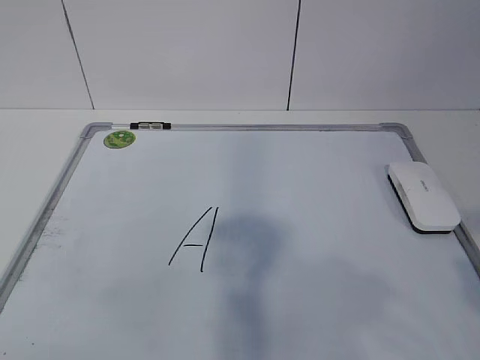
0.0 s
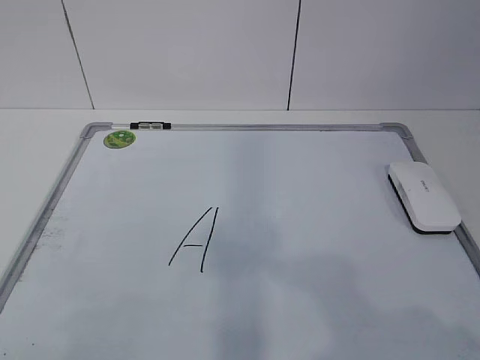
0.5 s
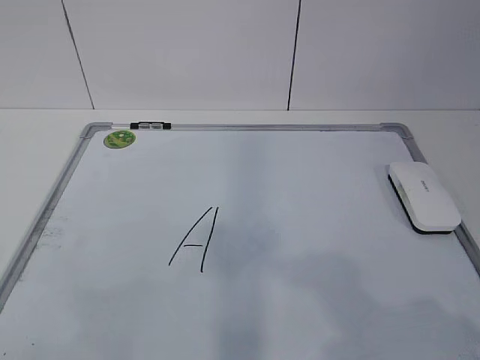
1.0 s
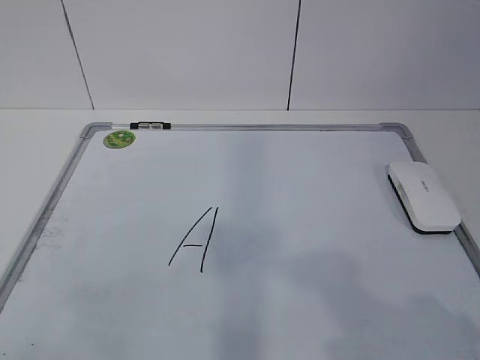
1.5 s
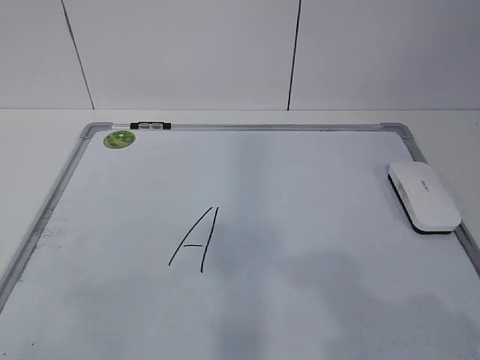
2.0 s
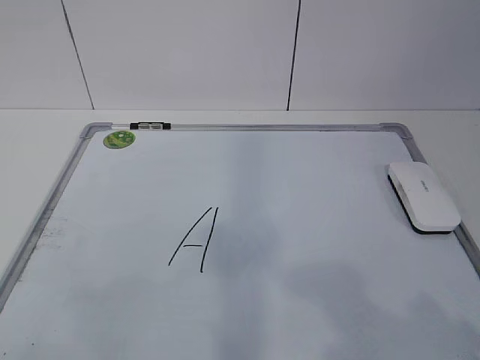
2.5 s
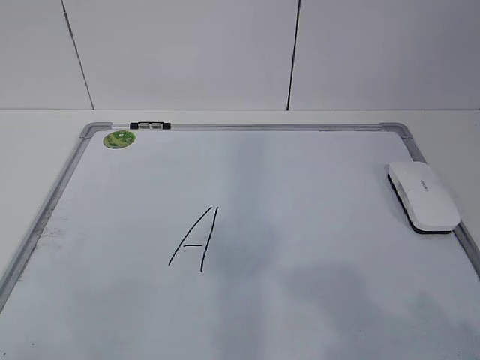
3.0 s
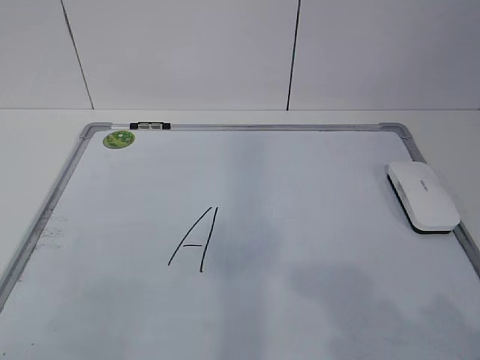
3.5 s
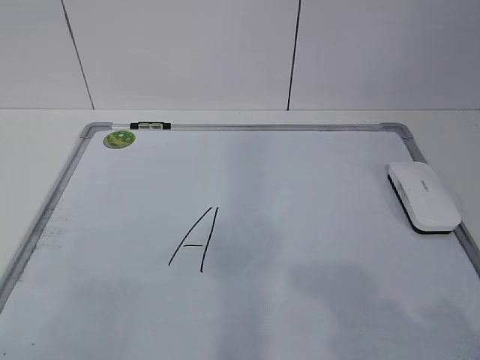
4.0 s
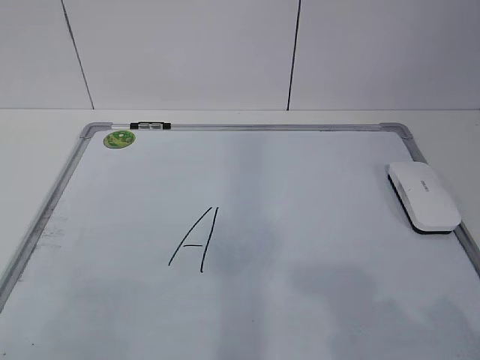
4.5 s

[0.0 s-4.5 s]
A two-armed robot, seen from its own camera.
Task of the whole recording: pick up the eraser on the blackboard and erase the letter "a".
0.0 to 2.0 s: The right gripper travels downward by some 10 cm. Meanwhile the left gripper changes place by some 5 cm.

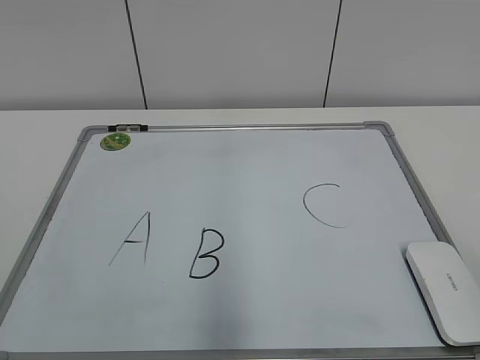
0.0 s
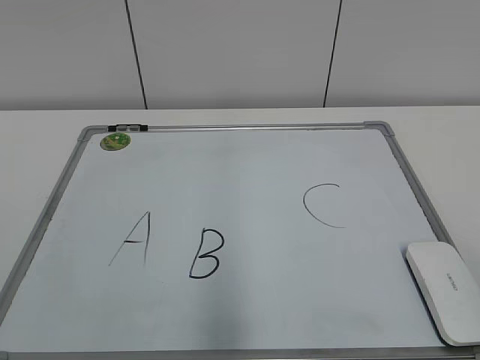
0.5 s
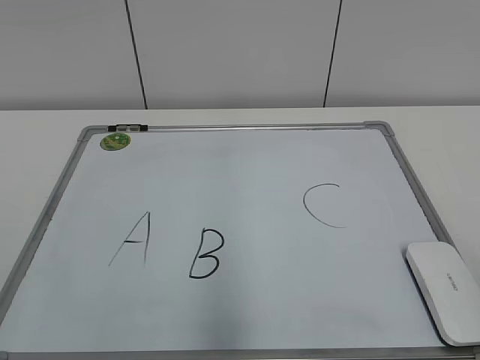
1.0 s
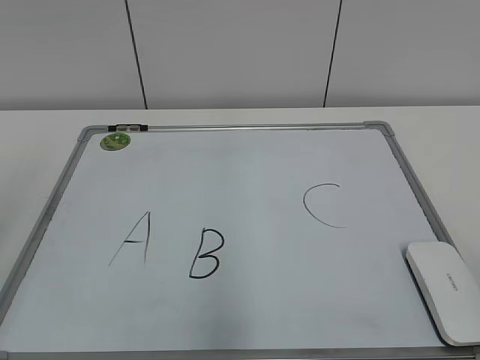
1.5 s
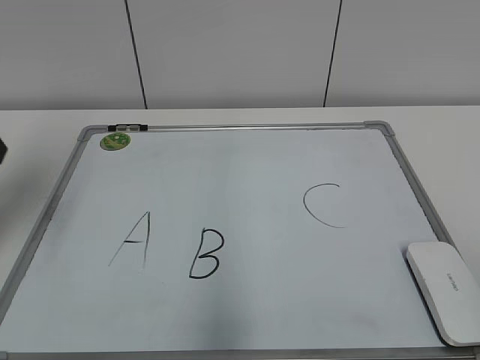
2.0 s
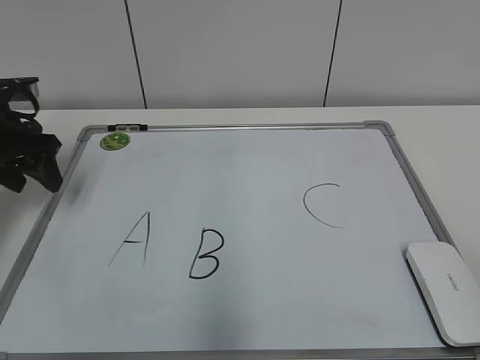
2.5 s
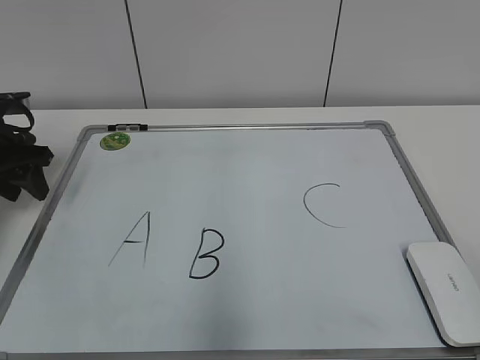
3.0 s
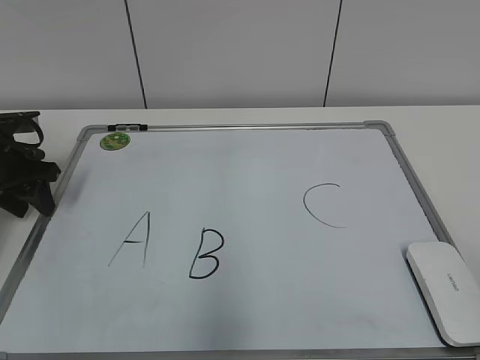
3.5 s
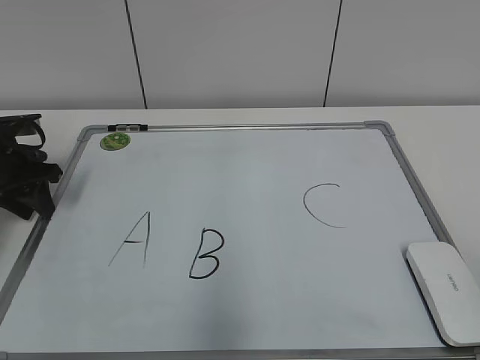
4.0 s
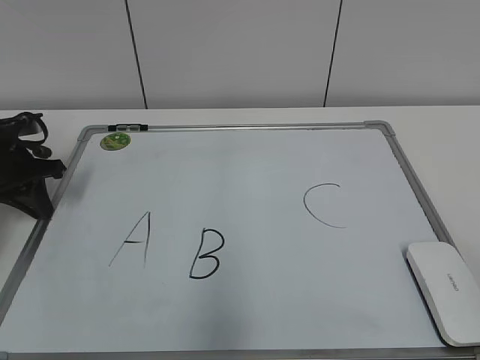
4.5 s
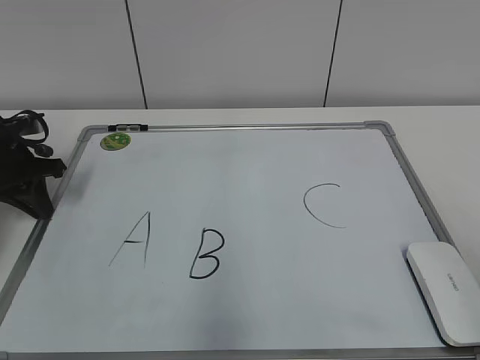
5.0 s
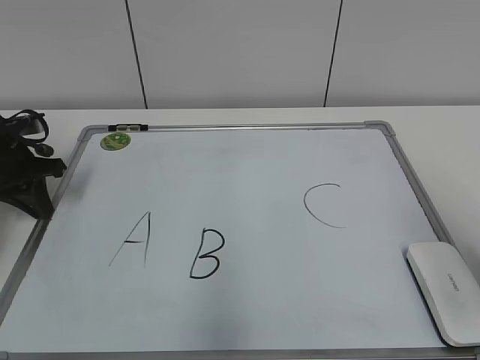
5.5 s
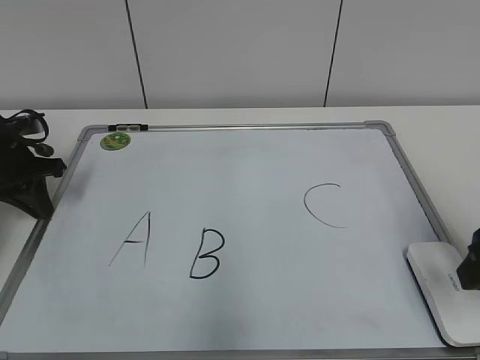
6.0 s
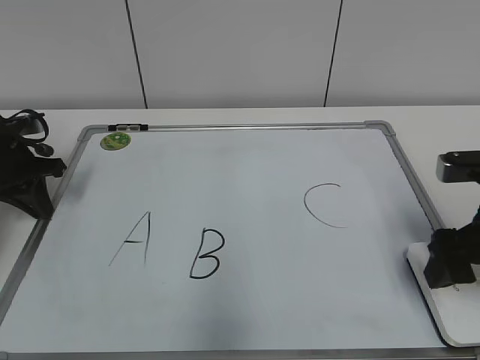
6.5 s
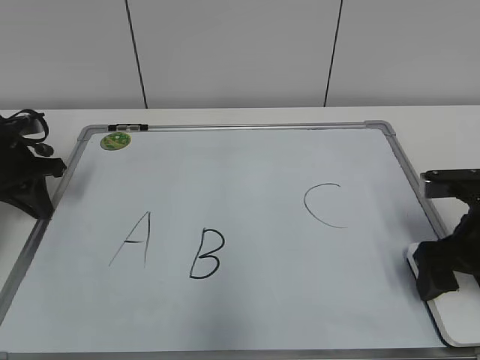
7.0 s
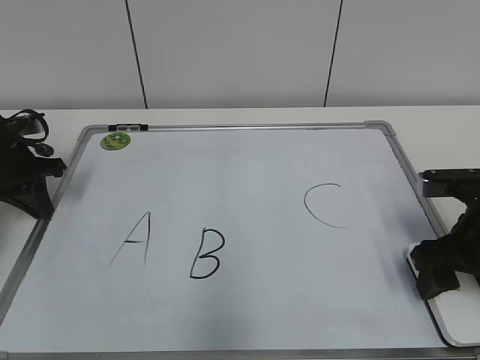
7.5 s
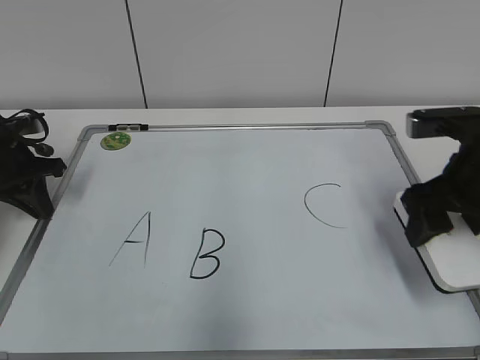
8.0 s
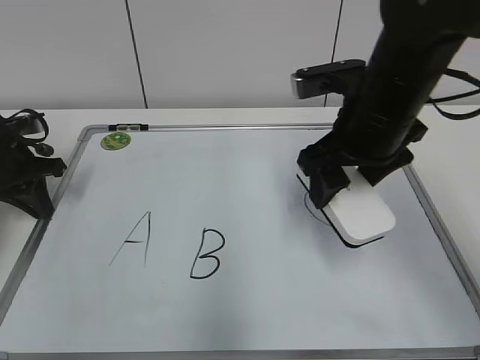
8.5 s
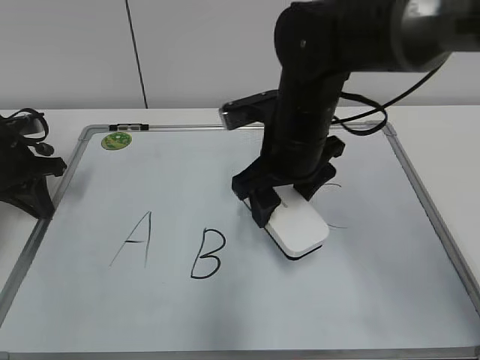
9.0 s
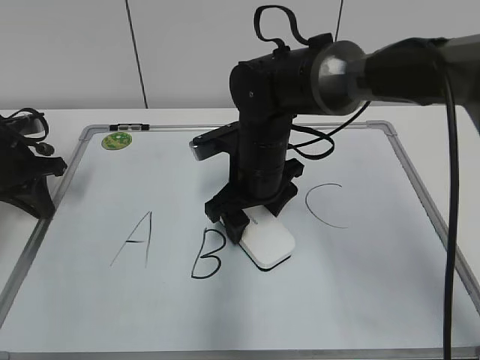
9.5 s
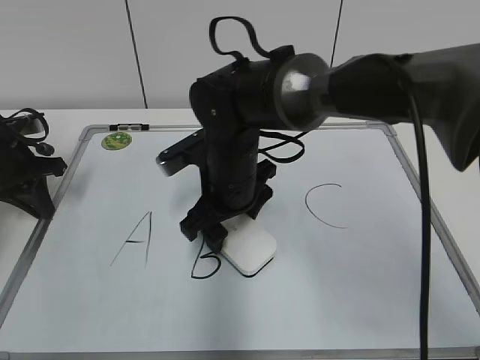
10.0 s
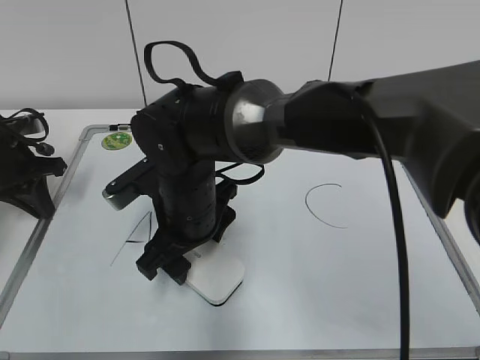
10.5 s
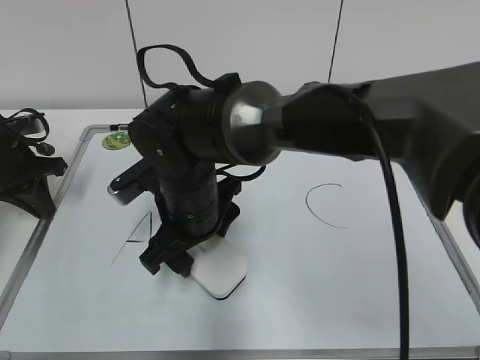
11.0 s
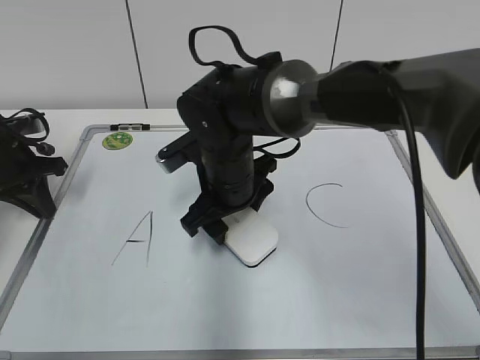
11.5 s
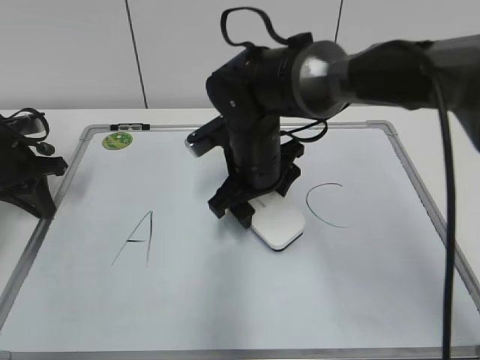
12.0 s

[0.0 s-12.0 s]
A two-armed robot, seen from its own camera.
Task of the whole recording: pick up the eraser on the blackboard and erase the letter "B".
Step, 0.0 to 4.0 s: Hold the drawing board steady with your left hand.
Step, 4.5 to 7.0 s: Grab the eraser with your right hand.
Step, 7.5 to 11.5 s: Erase the letter B with your right hand.
2.0 to 4.0 s: The left gripper heads downward and forward, covering about 20 cm, and closes its fingers.
4.0 to 6.0 s: The left gripper closes its fingers, while the right gripper moves forward, approximately 20 cm.
6.0 to 8.0 s: The right gripper goes approximately 10 cm forward, and closes.
8.0 to 10.0 s: The right gripper heads to the left, covering about 25 cm.

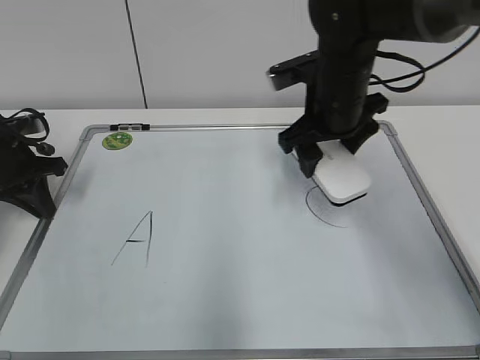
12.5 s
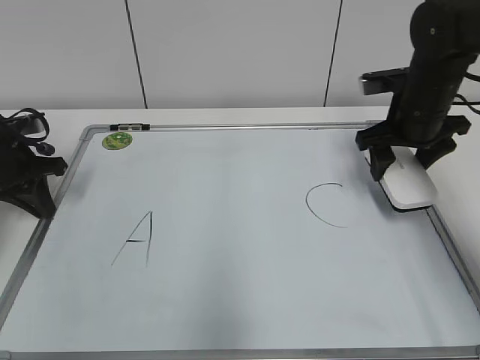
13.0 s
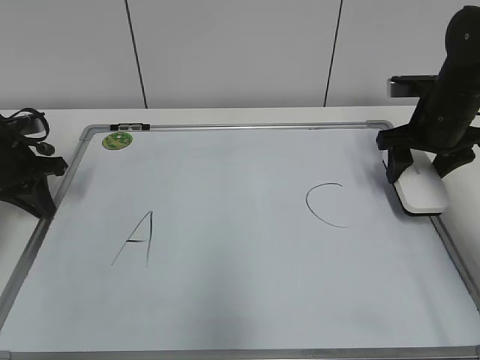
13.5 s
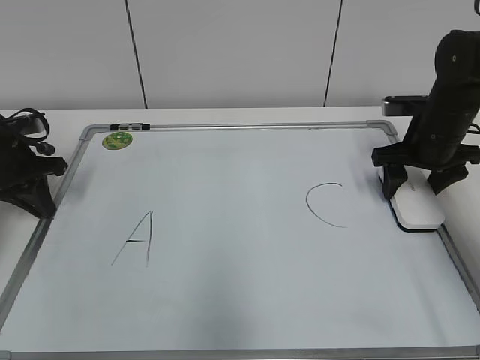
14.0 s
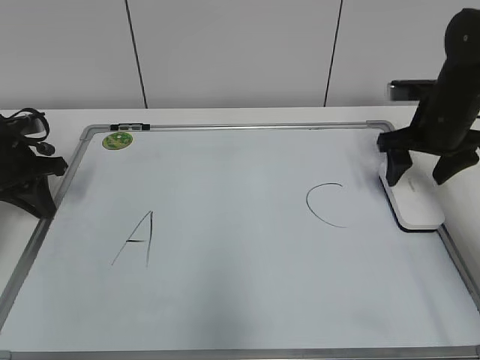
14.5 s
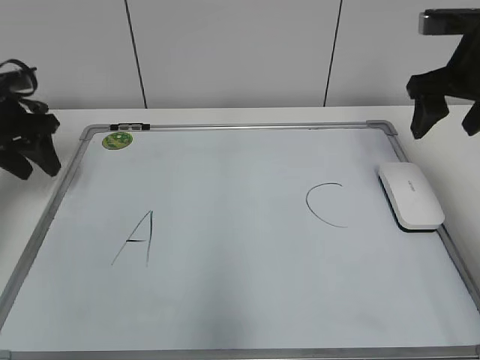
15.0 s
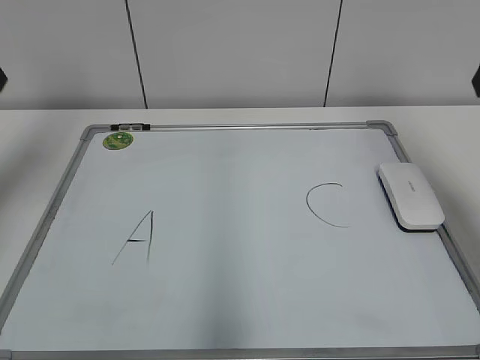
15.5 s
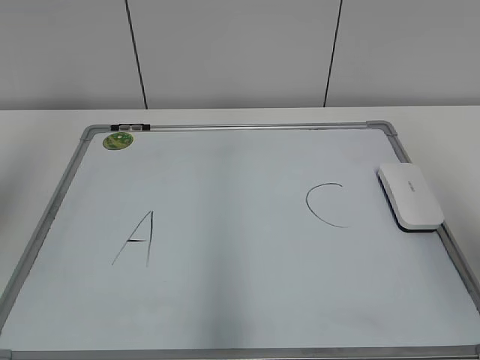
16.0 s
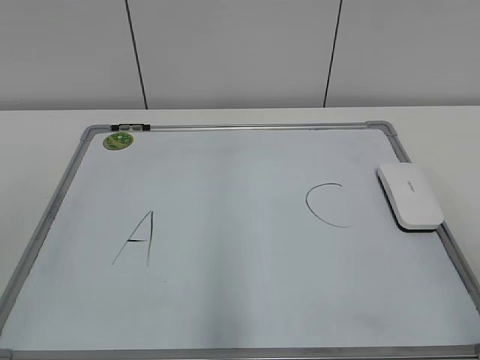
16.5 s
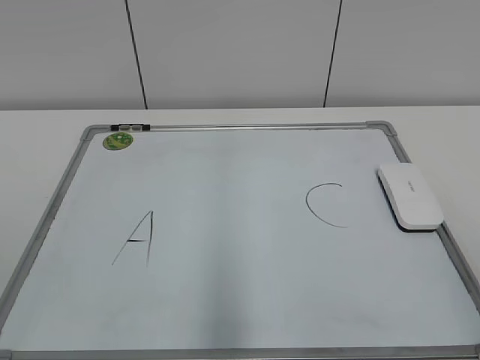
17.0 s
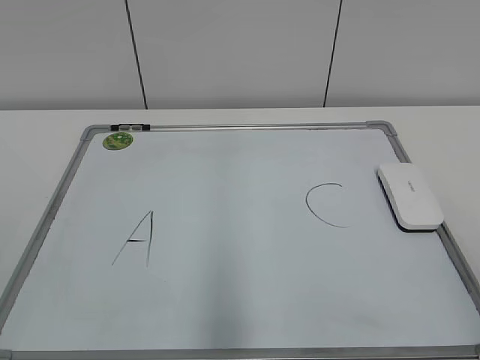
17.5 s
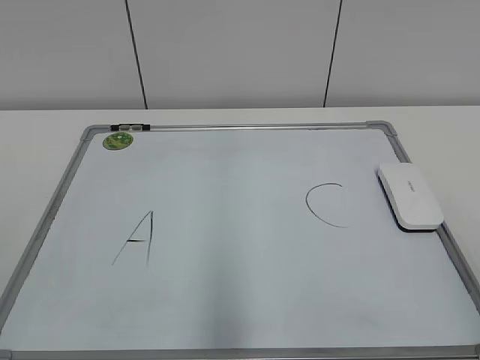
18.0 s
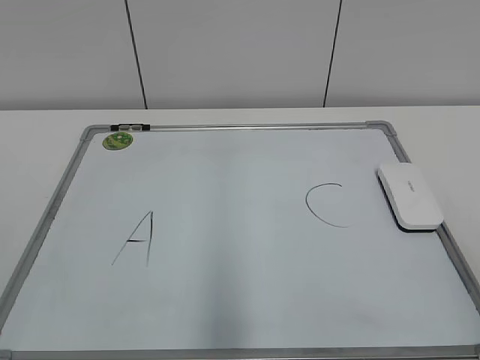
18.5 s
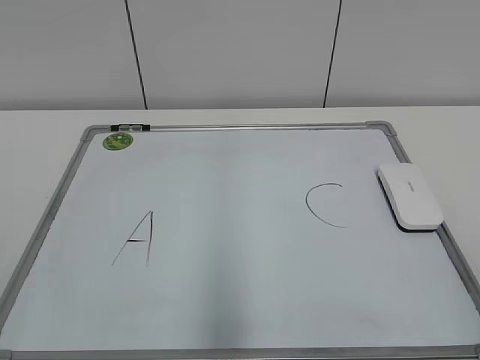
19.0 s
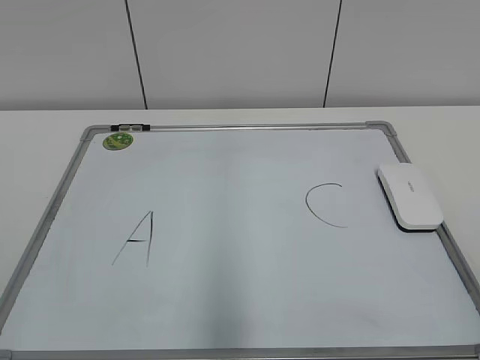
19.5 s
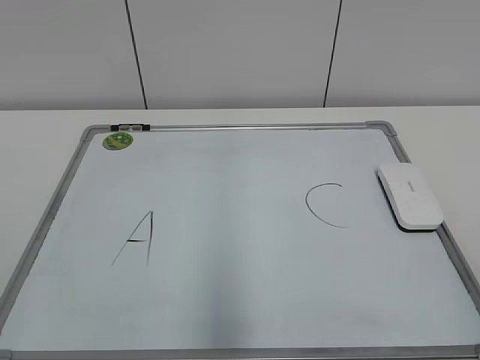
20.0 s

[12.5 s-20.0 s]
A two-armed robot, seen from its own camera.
Task of the whole recording: pick up the eraser on the blackboard and erase the letter "B".
Step, 12.5 to 14.0 s: Put down the eraser with your right hand.
12.5 to 14.5 s: The right gripper travels to the right by roughly 15 cm, and opens its fingers.
14.5 to 16.5 s: The right gripper heads backward, covering about 35 cm. The left gripper goes approximately 40 cm backward and upward, and opens up.

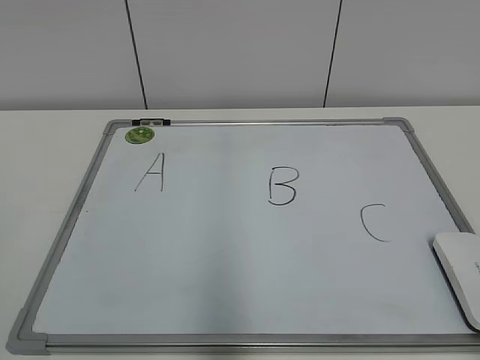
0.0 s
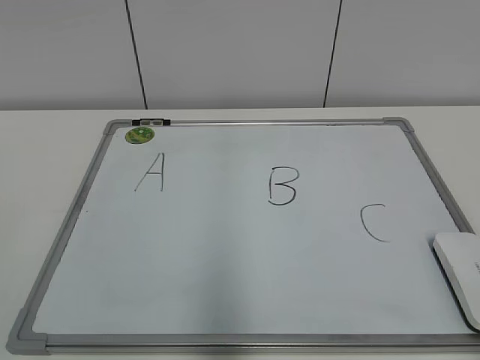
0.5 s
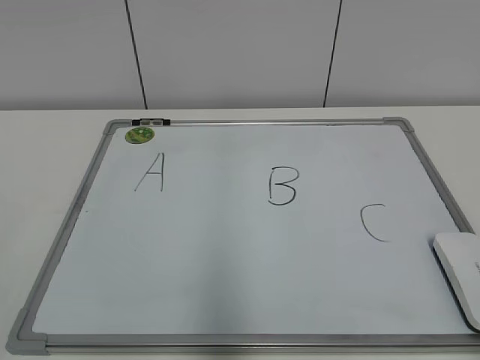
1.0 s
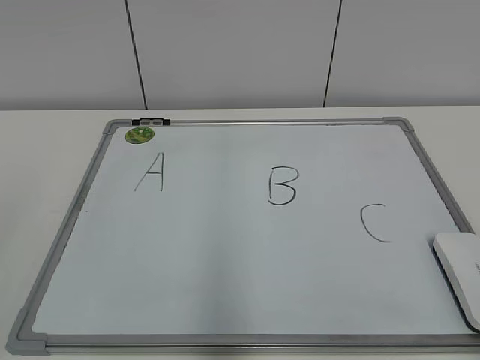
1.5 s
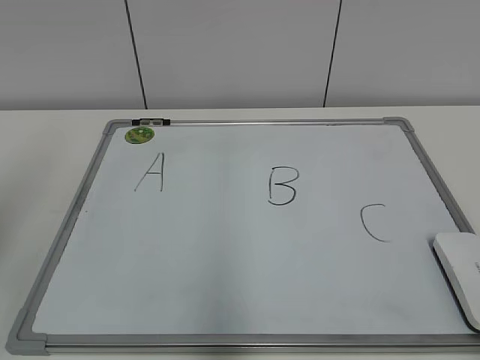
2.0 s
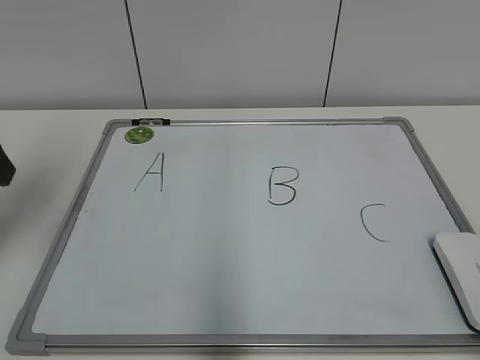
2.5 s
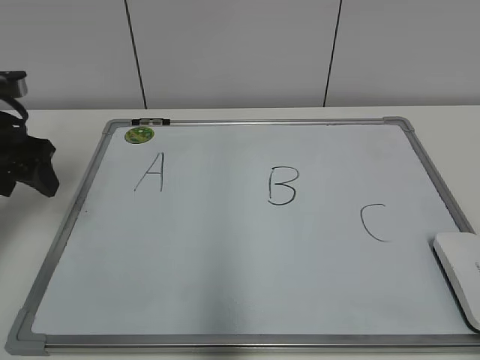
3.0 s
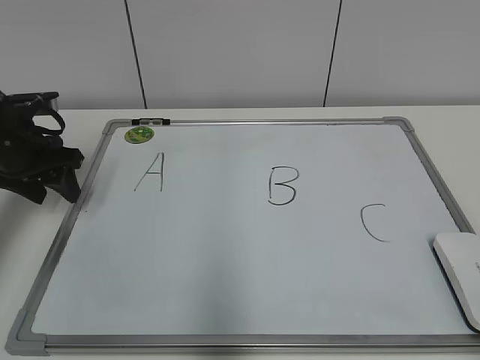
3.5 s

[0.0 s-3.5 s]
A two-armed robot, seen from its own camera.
Task of the whole recording: pick up the eraser on the blackboard and erase the letter "B".
2.0 to 3.5 s: The left gripper shifts roughly 30 cm forward and downward.
